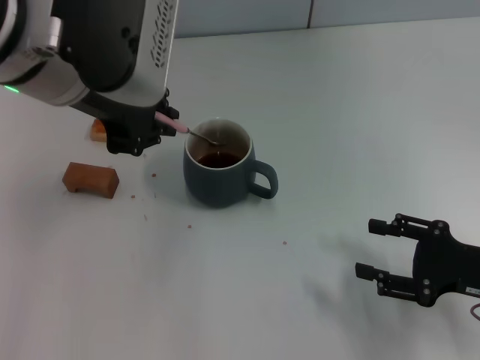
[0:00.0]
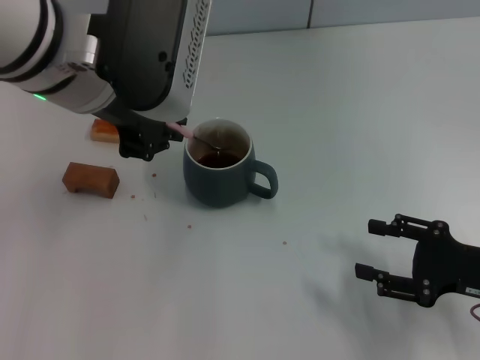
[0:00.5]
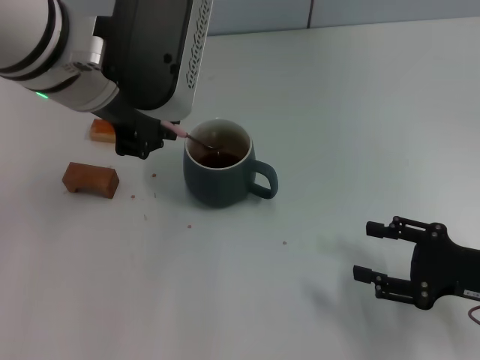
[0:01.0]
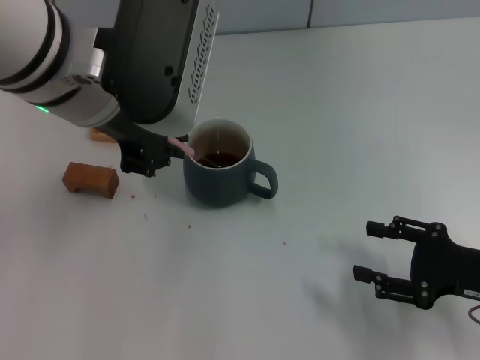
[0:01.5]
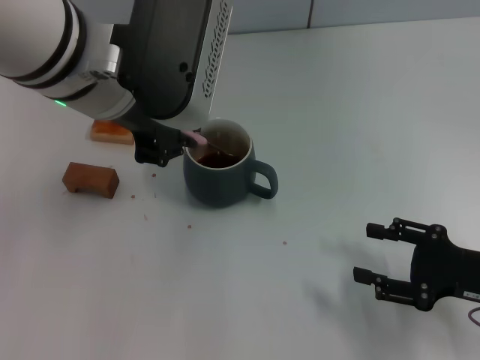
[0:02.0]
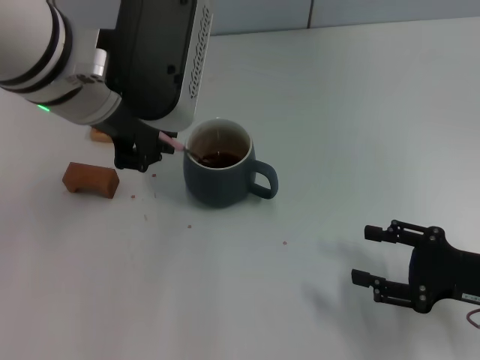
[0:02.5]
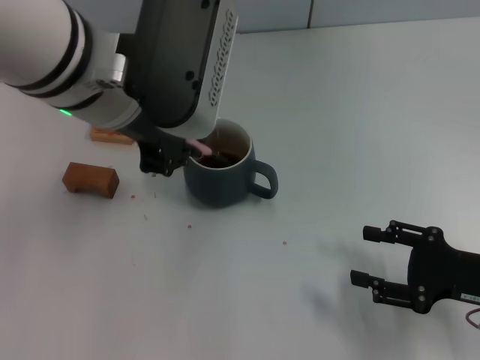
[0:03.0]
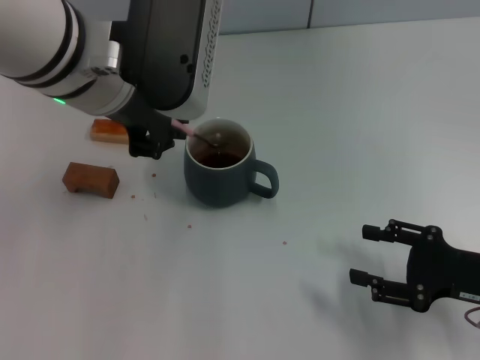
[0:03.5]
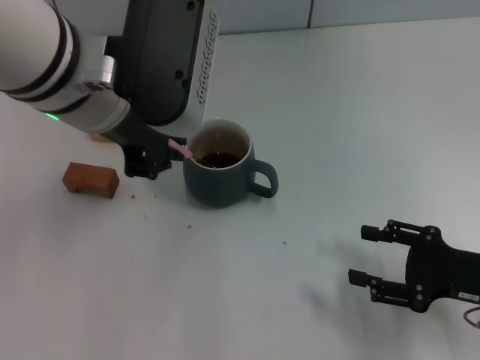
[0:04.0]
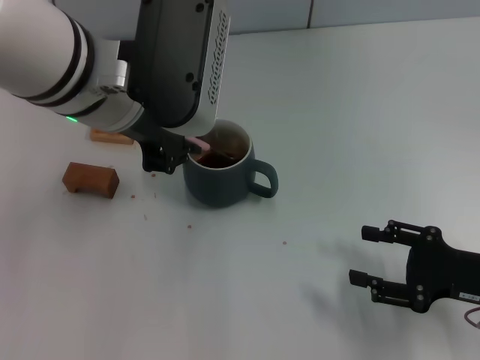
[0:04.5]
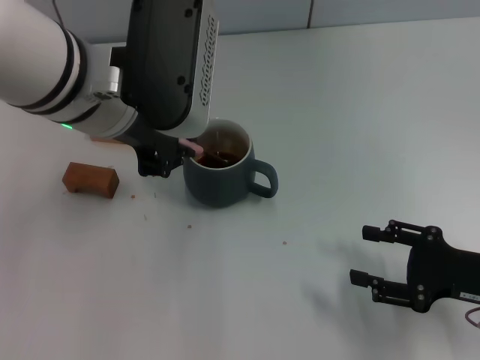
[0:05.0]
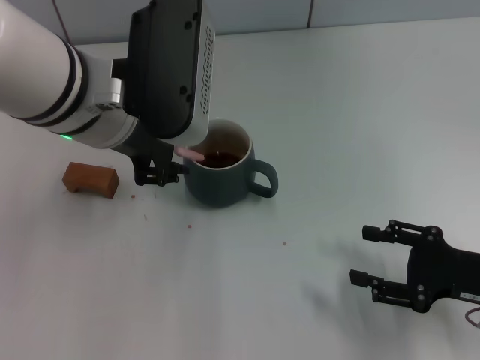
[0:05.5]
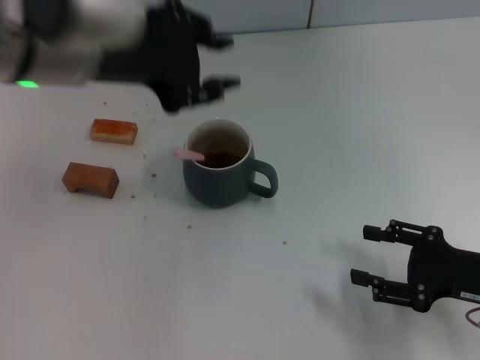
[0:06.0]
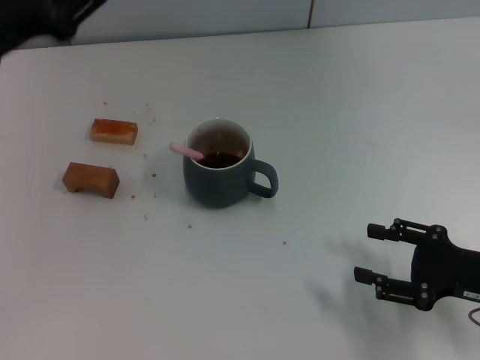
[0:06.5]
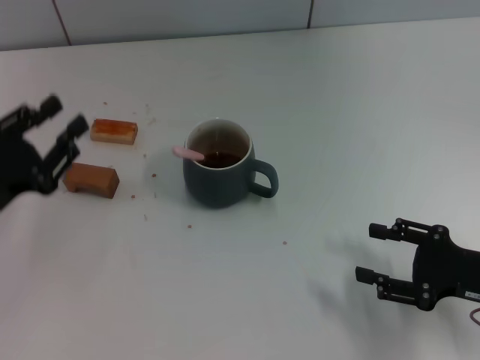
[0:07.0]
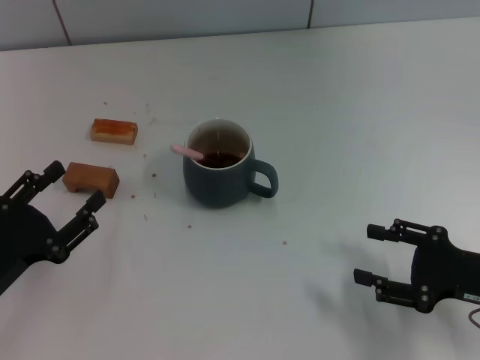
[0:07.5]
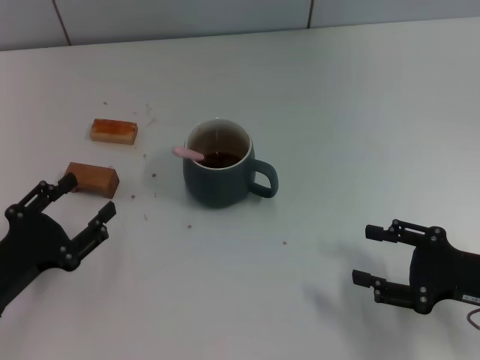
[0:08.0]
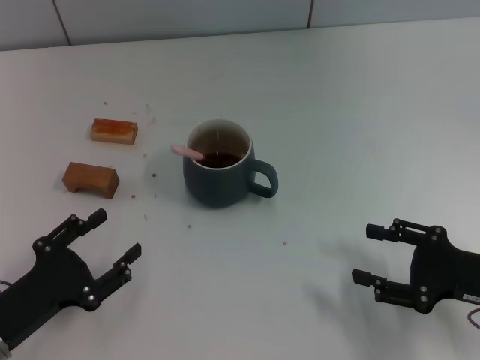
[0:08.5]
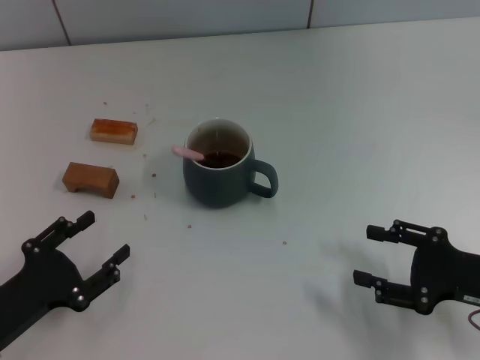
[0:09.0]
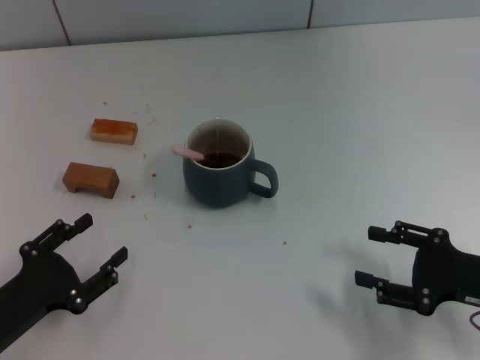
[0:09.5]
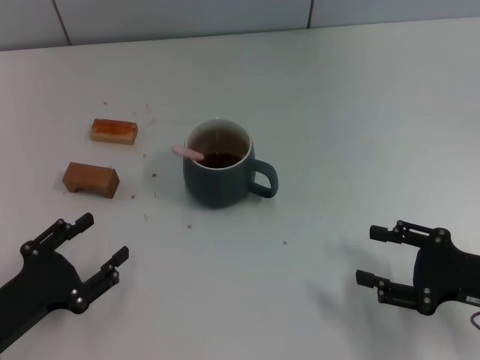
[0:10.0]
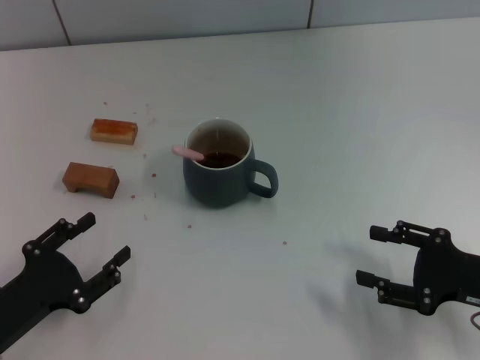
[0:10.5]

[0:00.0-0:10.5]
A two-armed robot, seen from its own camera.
Task of the whole recording: Move the grey cup to the center, lift the pink spoon, stir it three times in the cup, and put the spoon into the cup.
Step, 0:00.0 to 0:05.5: Stir the coffee in the cup with the left gripper.
0:00.0 to 0:04.0: The grippers move only a little.
0:04.0 to 0:06.5: The left gripper goes about 15 cm to the left, and opens up.
0:06.5 to 0:08.5: The left gripper travels downward and backward by roughly 25 cm, and opens its fingers.
0:08.5 to 0:10.5: Both grippers stay put.

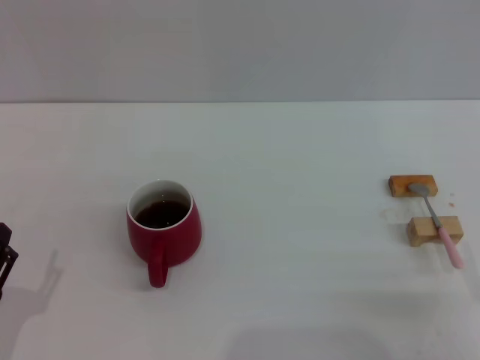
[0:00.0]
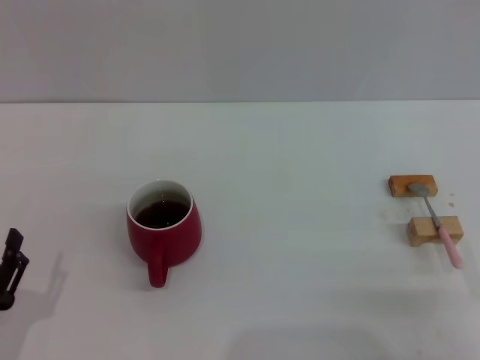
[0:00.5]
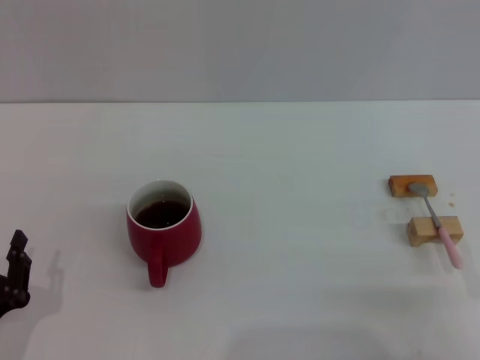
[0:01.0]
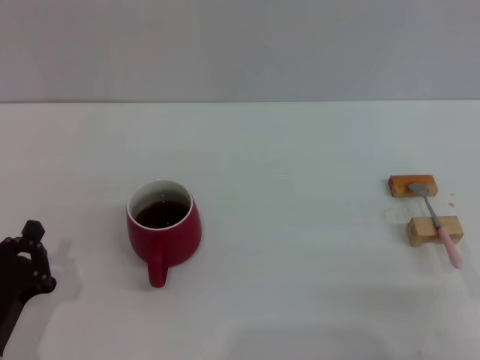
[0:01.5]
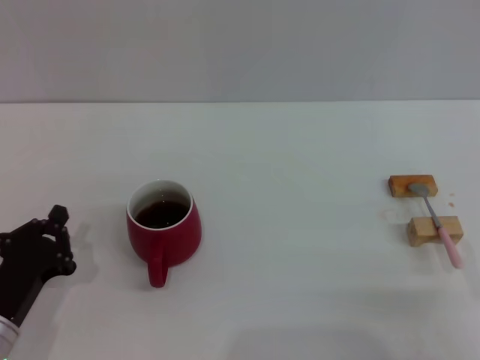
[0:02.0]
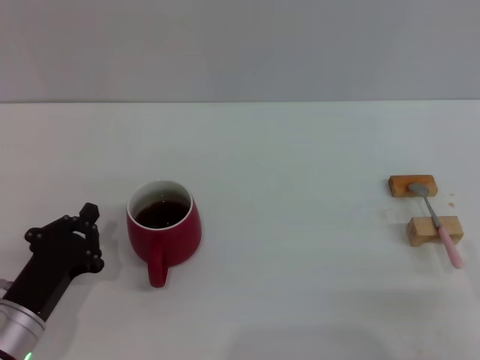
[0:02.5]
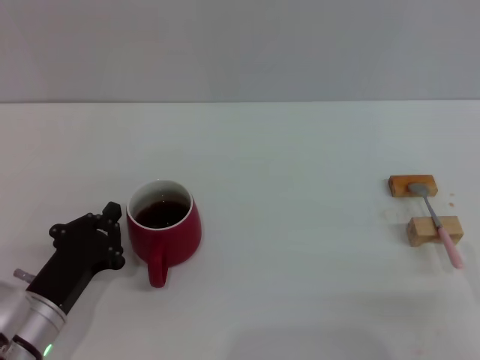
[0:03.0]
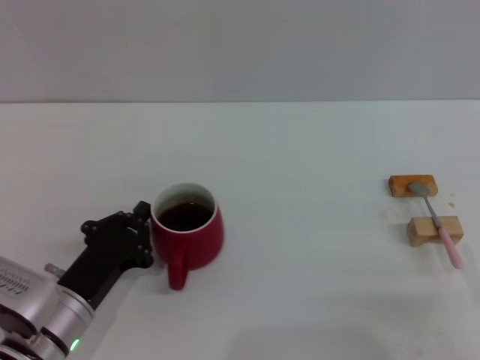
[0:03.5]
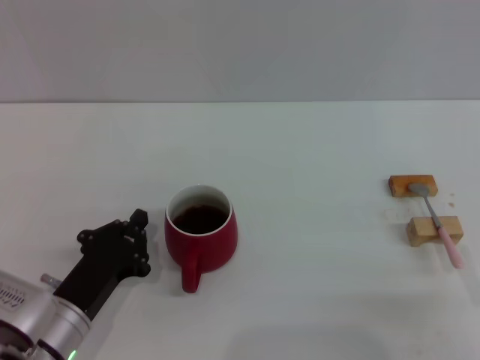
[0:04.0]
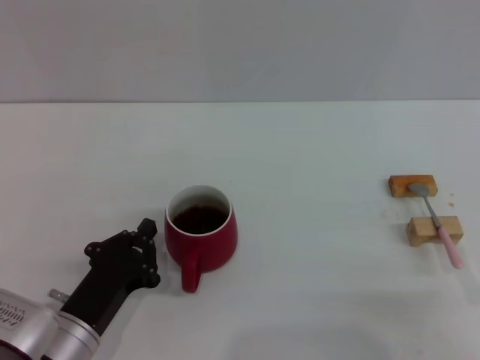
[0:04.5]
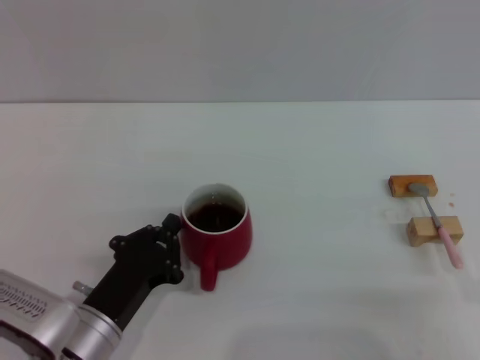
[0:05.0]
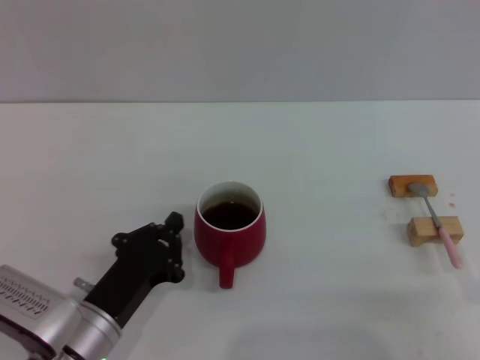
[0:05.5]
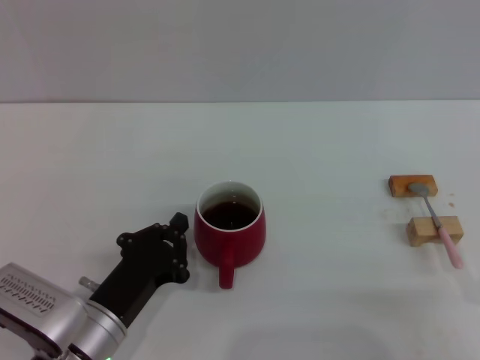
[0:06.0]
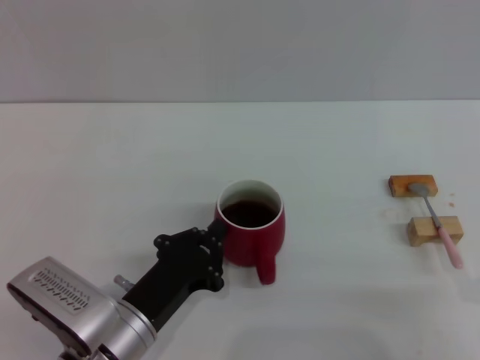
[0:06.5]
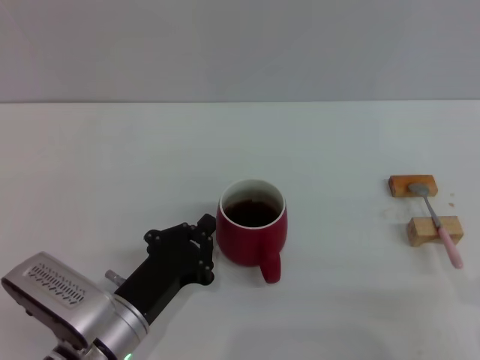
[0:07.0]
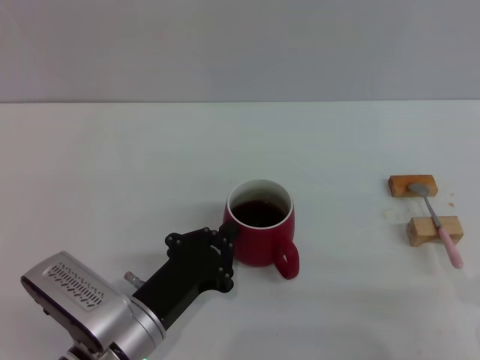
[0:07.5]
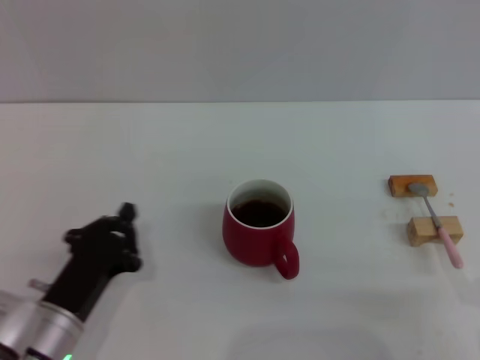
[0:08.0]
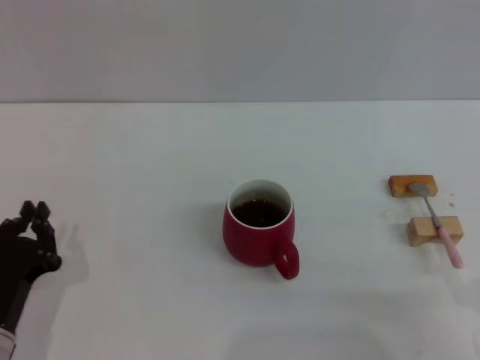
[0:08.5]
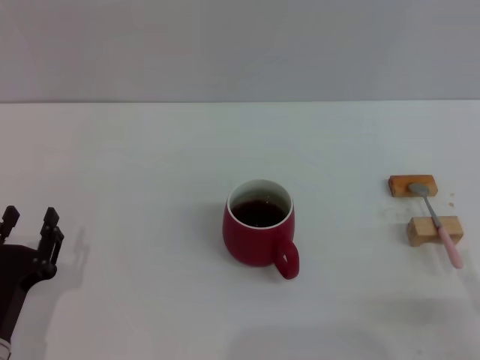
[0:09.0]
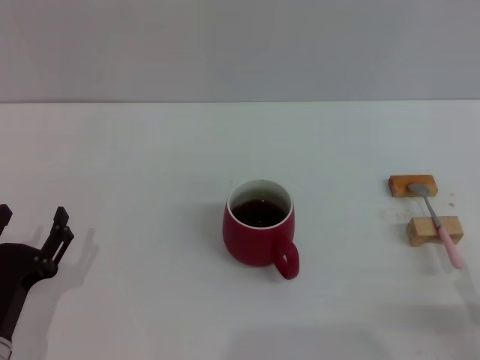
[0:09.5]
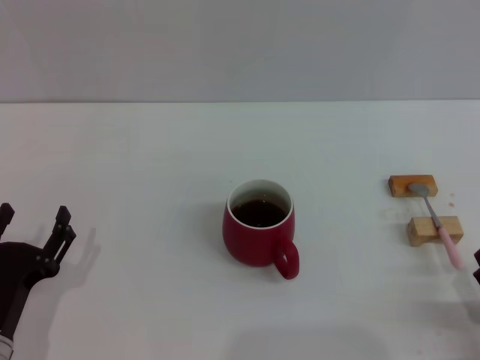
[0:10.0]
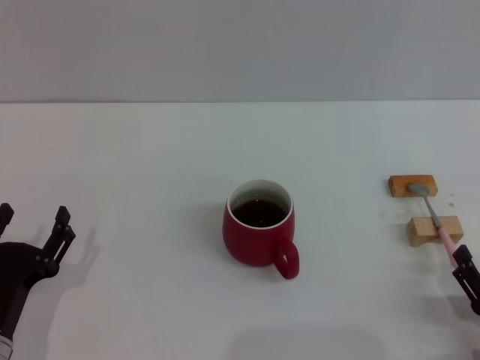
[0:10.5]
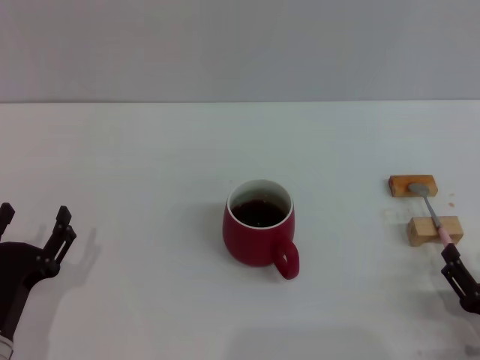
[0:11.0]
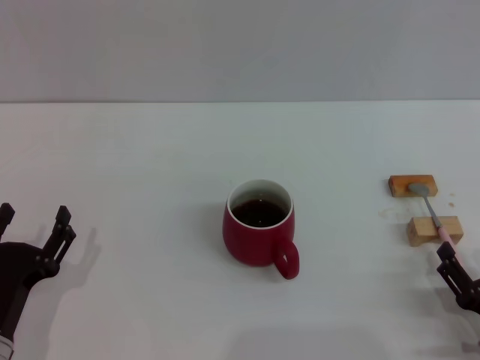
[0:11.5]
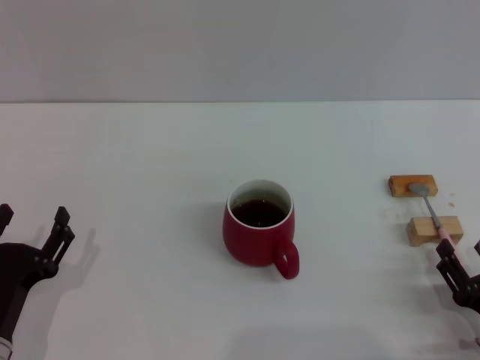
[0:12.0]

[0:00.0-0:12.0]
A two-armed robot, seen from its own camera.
Task of the whole recording: Move the red cup to the center, lift the pink spoon, stir it three times in the cup, and put the spoon into the cup.
Step, 0:00.0 to 0:07.5: Move the cup with coffee to the center of view with the left gripper.
0:00.0 to 0:02.0: The left gripper goes some 5 cm forward, and closes up.
0:02.0 to 0:04.0: The left gripper goes approximately 5 cm to the right.
0:04.0 to 0:06.0: The grippers move only a little.
0:06.0 to 0:08.0: The grippers move only a little.
0:08.0 to 0:10.0: The left gripper shifts by some 5 cm, and opens. The right gripper shifts some 5 cm downward.
0:10.0 to 0:12.0: There are only small adjustments of the grippers.

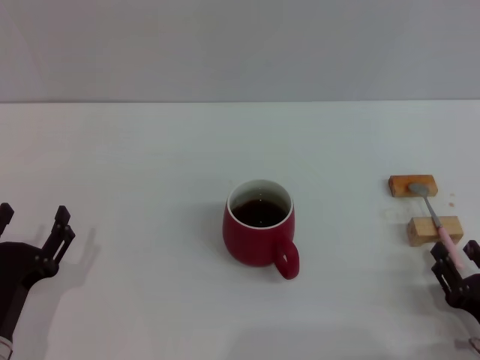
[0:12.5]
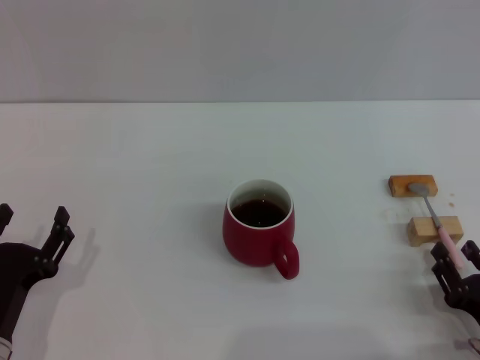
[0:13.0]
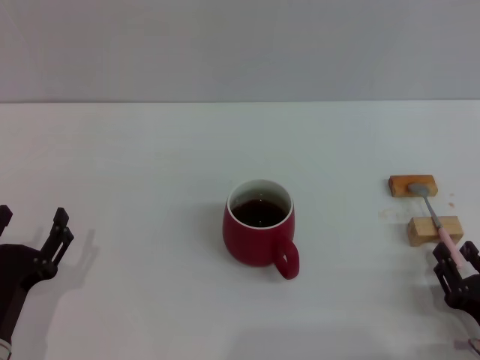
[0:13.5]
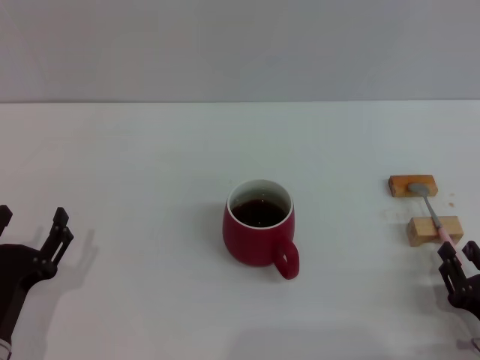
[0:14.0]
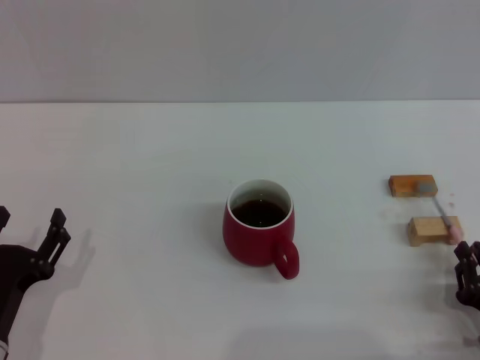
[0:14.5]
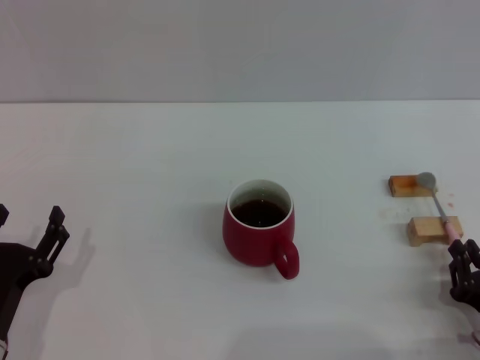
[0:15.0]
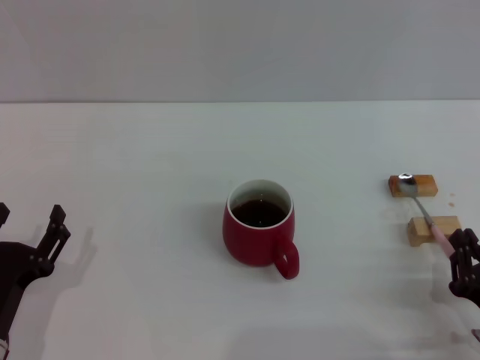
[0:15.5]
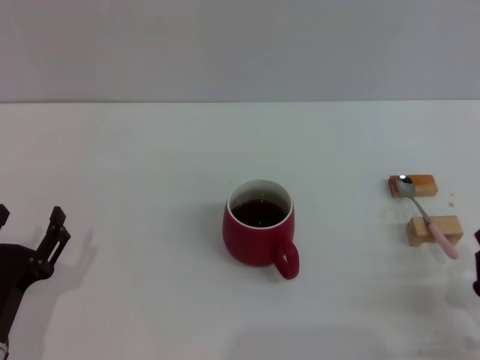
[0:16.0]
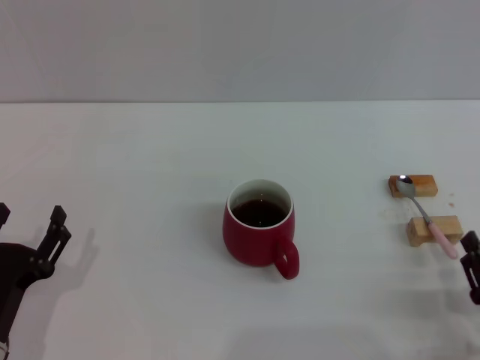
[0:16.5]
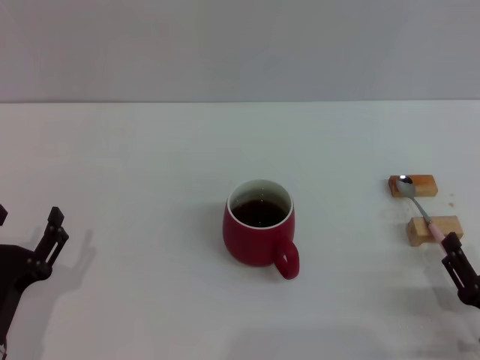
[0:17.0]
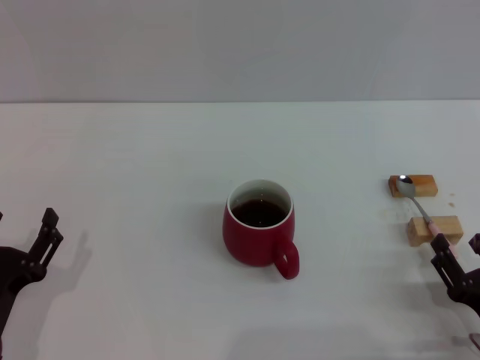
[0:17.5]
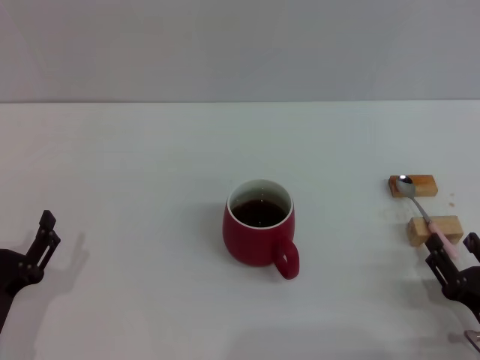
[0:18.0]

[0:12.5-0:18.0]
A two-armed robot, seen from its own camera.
Task of the whole recording: Move the red cup to the center, lift the pink spoon, stir it three times in the cup, and put the spoon into the cup.
0:12.5 to 0:14.5: The right gripper closes its fingers.
0:14.5 to 0:16.0: The grippers move only a little.
0:16.0 to 0:18.0: The right gripper opens its fingers.
